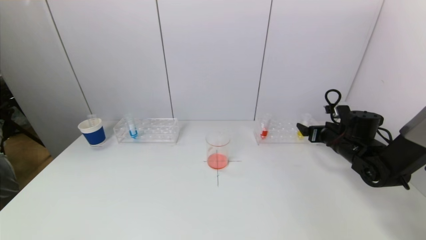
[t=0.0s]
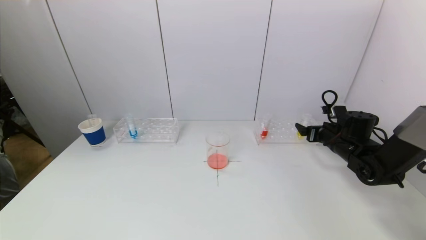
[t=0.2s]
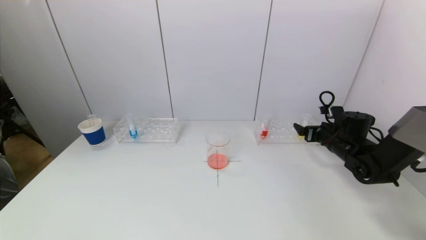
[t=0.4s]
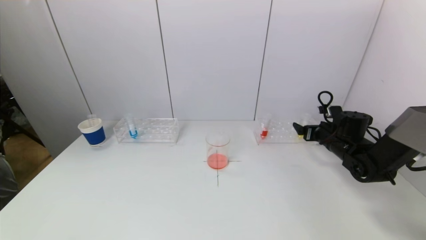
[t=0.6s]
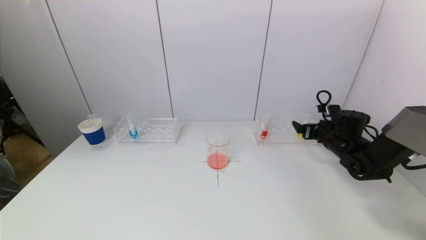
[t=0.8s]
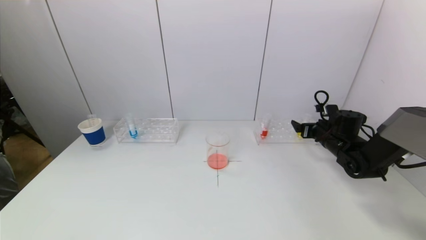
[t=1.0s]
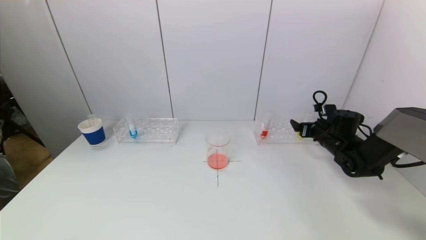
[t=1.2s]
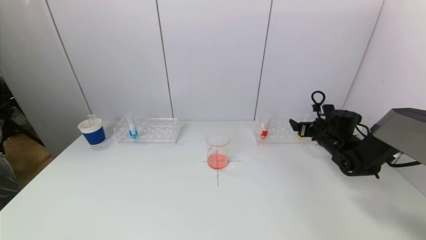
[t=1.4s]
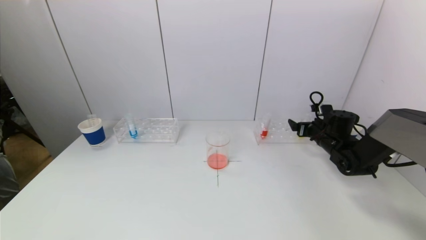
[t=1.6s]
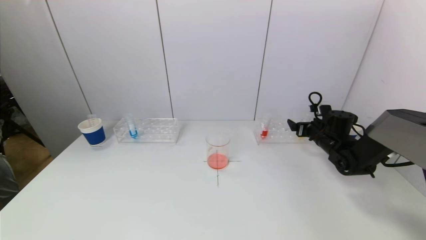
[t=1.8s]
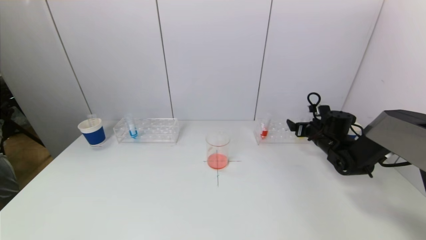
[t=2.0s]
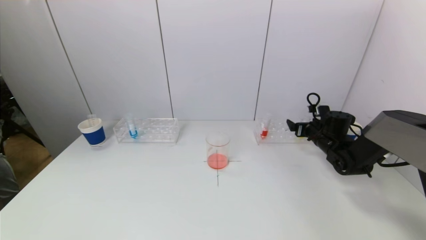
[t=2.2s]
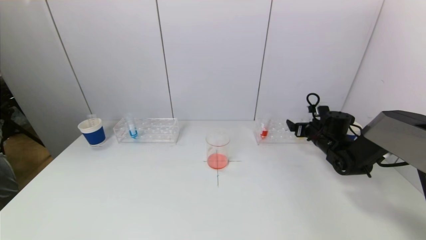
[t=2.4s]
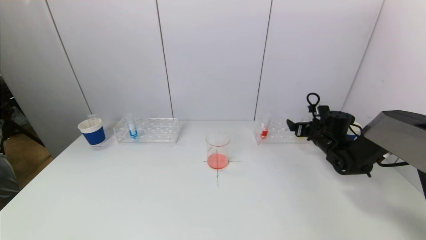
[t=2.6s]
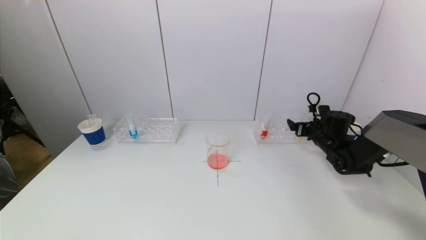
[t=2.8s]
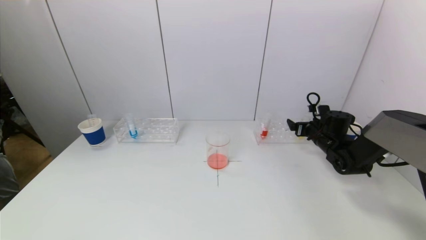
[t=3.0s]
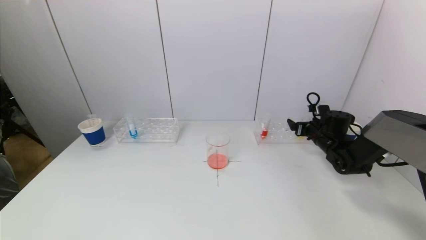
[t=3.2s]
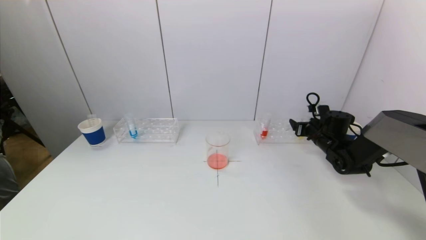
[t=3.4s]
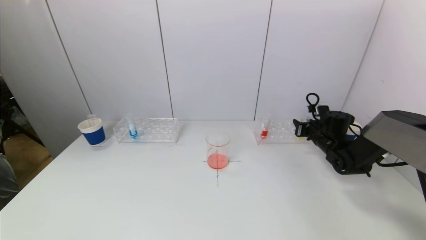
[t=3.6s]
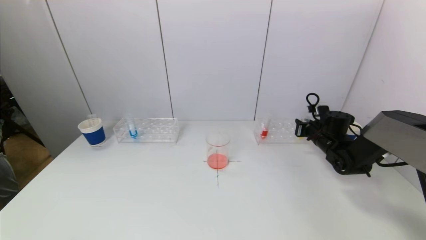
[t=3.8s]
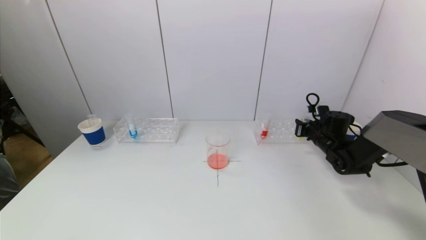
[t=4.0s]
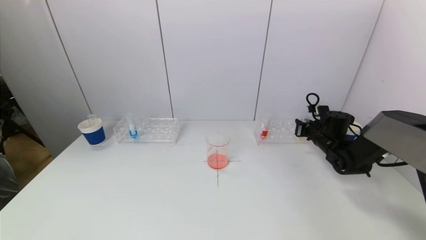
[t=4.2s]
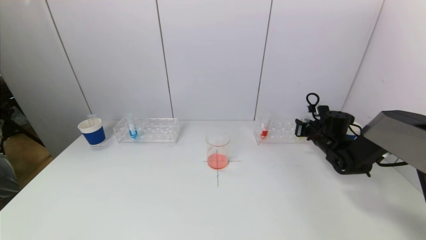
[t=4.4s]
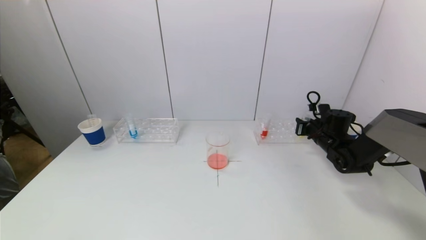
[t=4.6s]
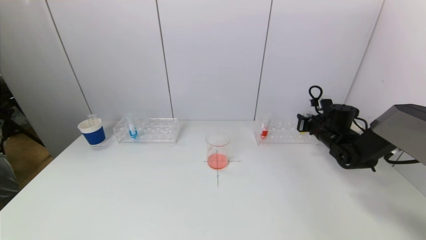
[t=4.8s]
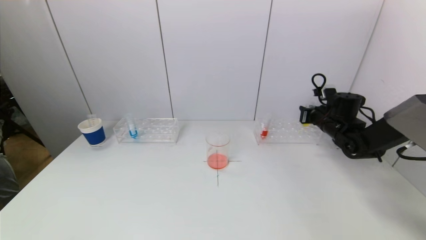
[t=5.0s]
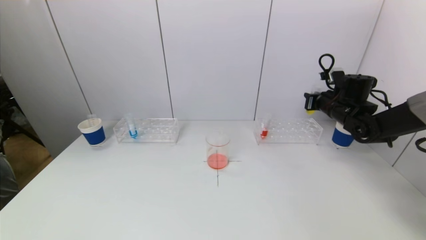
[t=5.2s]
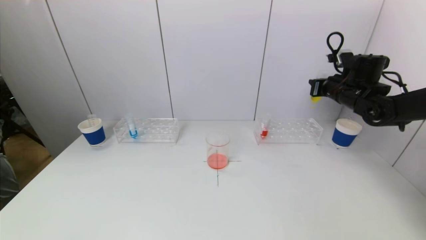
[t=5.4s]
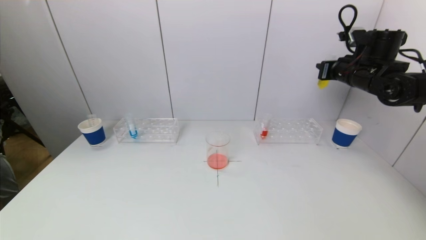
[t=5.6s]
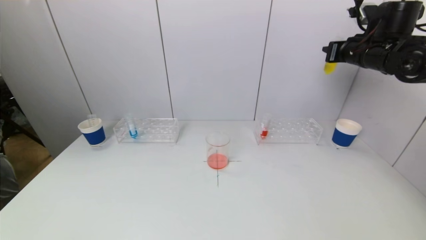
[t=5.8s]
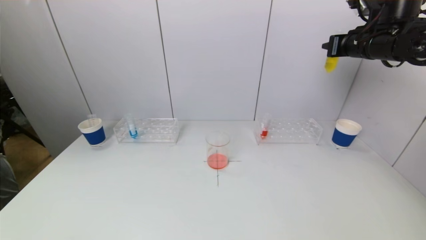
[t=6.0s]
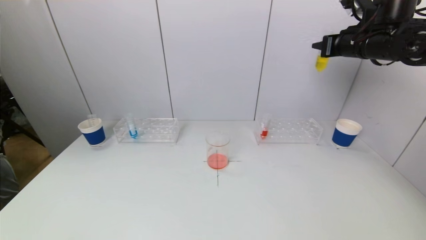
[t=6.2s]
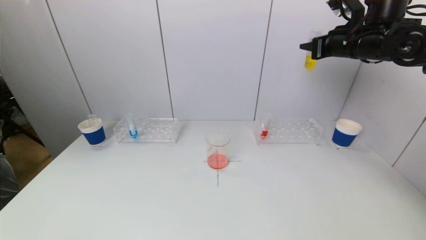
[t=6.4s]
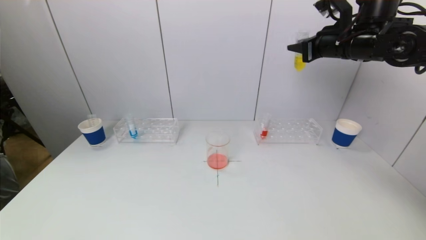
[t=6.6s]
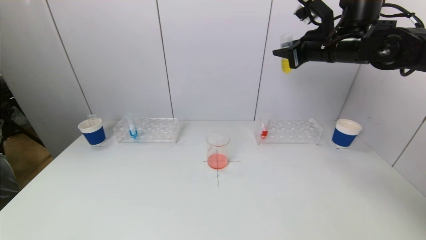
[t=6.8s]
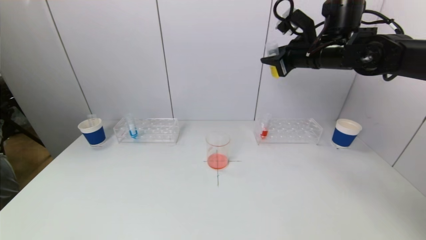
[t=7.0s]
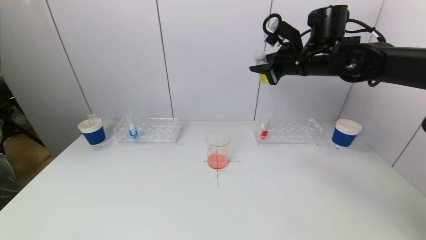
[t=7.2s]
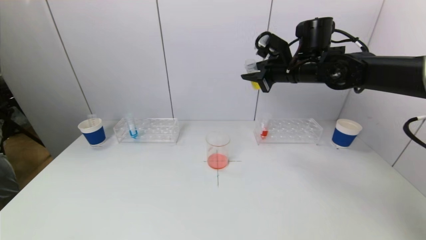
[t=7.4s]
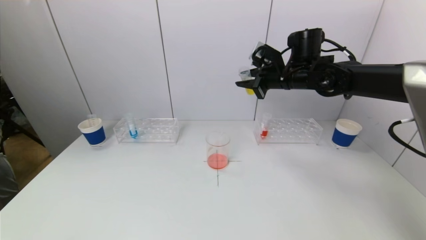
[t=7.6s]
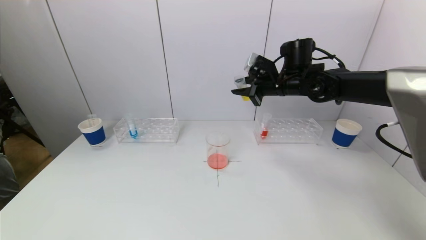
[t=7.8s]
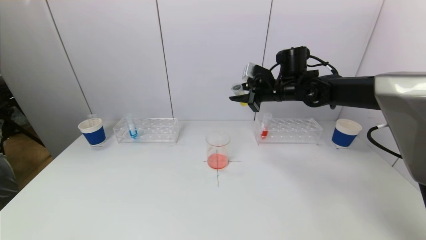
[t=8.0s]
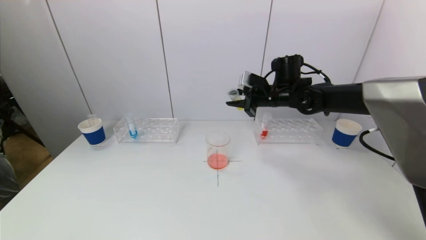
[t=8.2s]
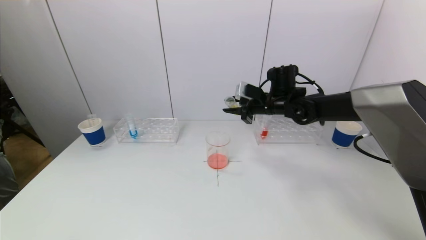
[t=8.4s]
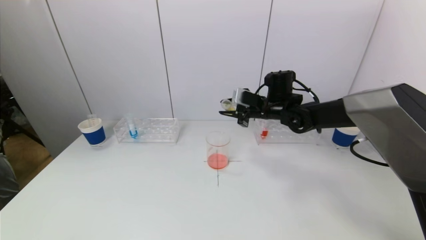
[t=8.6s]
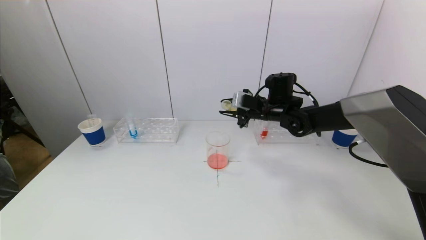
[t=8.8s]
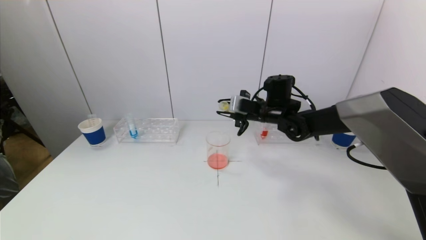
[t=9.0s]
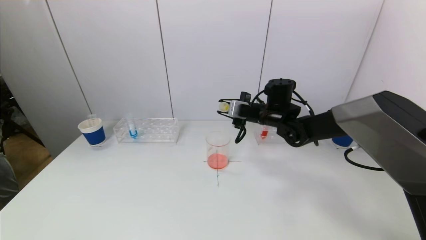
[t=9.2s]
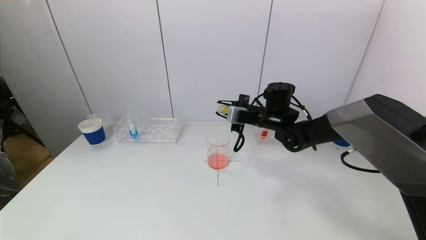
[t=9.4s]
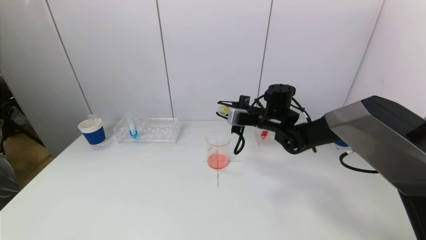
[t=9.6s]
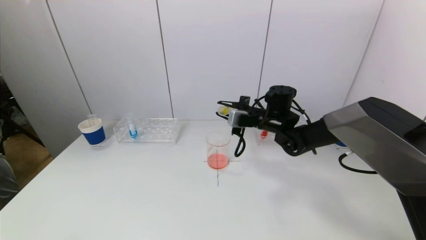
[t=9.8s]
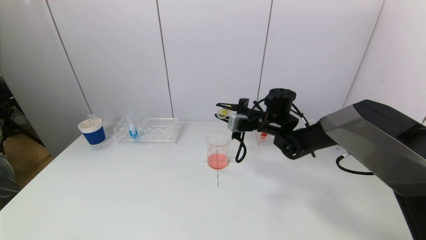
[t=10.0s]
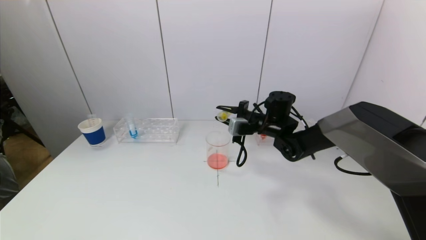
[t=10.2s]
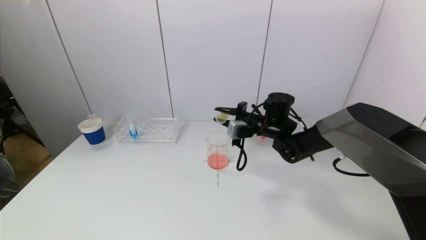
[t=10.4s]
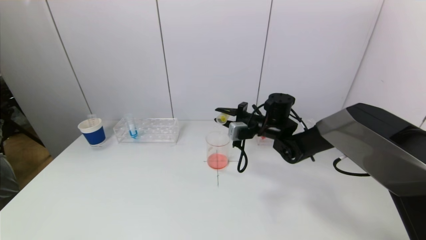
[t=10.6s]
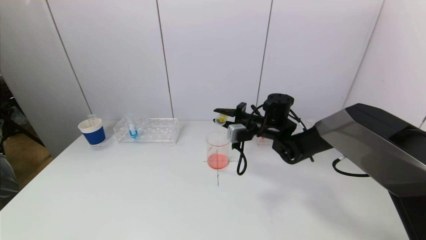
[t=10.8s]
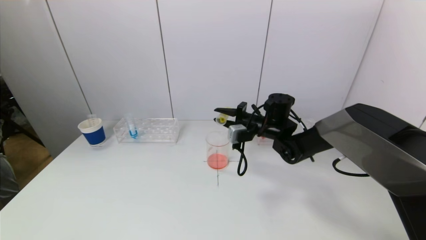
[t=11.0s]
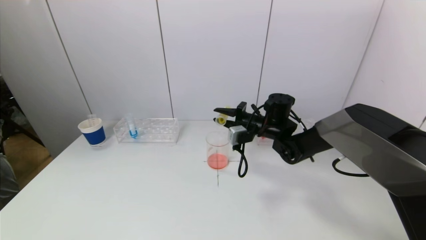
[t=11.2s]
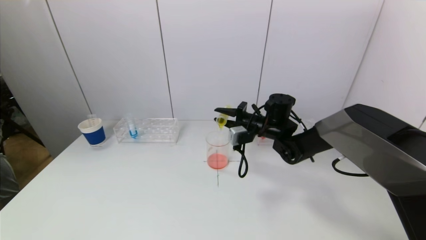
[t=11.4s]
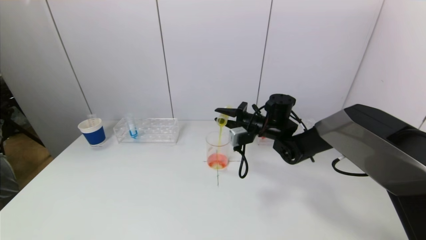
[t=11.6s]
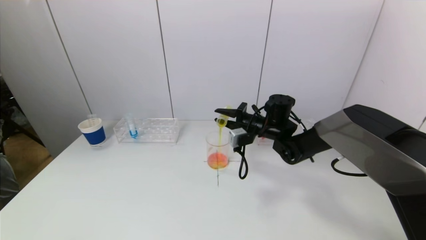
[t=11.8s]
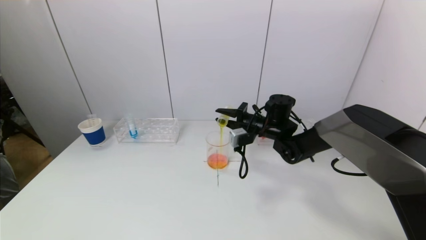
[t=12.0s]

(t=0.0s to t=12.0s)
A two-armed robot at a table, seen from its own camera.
Task of the whole recording: pick up a test tube with pigment on left test tube rack and a test tube with pigment on right test tube rack by grippers and pour them into the beaker.
Step, t=0.0s - t=4.0s: Grasp the yellow reagent with the right gripper.
t=0.0s - t=1.6s: The right gripper is displaced forward by approximately 5 cm.
t=1.6s - t=3.0s: Both grippers stay about where they are.
t=4.4s - t=6.0s: The right gripper is displaced upward by some 30 cm.
t=6.0s - t=7.6s: The right gripper is displaced to the left and downward by roughly 15 cm.
t=7.6s - t=9.0s: The right gripper moves downward, roughly 10 cm.
t=10.4s - t=12.0s: The grippers move only a little.

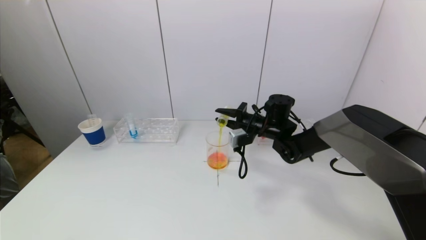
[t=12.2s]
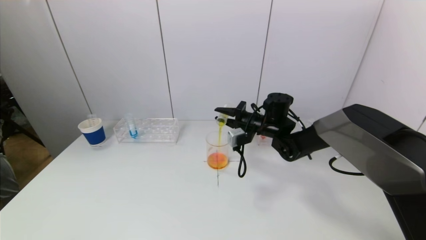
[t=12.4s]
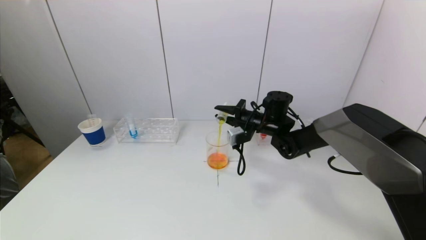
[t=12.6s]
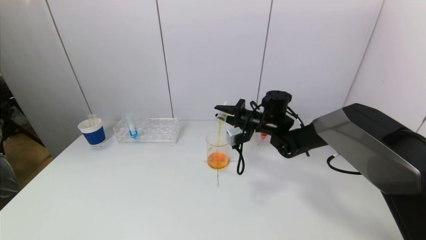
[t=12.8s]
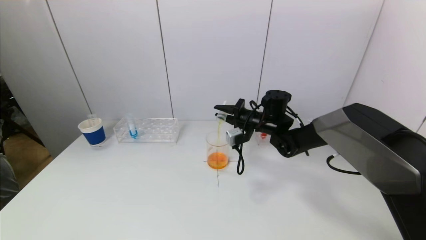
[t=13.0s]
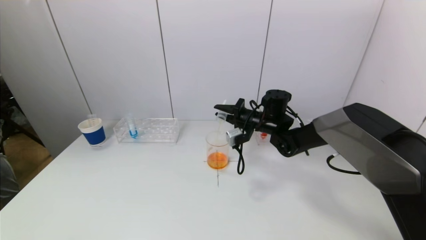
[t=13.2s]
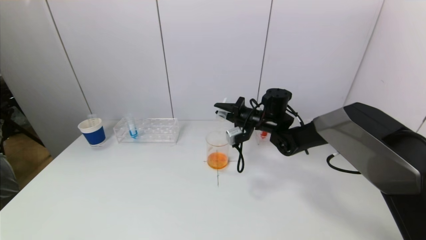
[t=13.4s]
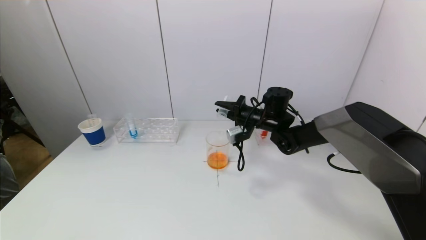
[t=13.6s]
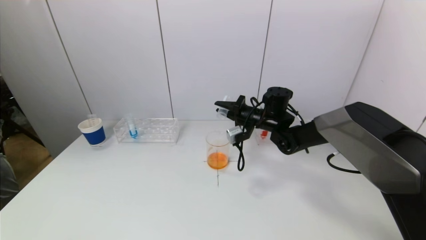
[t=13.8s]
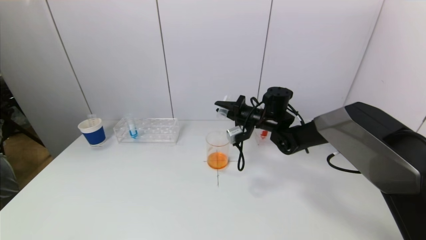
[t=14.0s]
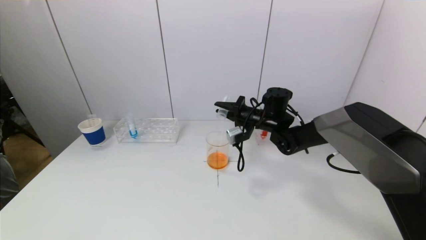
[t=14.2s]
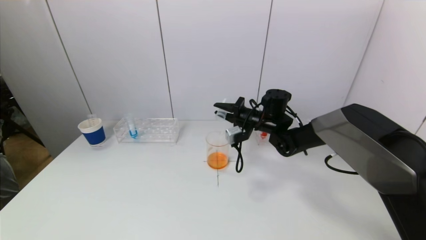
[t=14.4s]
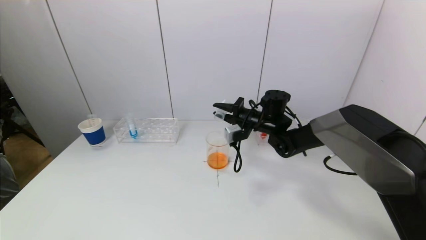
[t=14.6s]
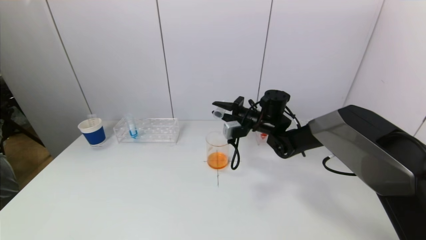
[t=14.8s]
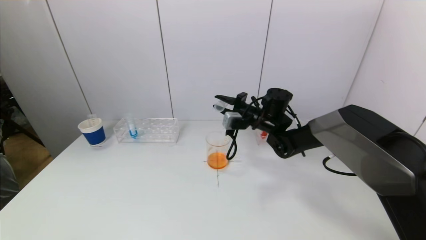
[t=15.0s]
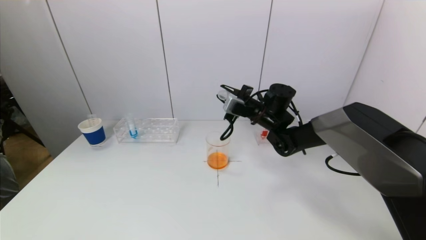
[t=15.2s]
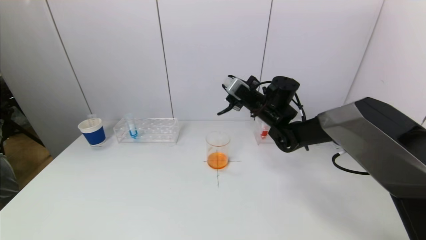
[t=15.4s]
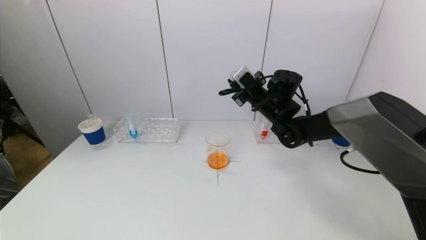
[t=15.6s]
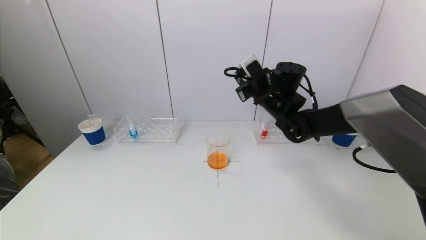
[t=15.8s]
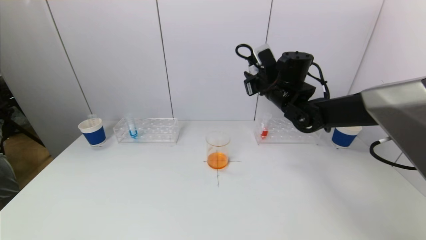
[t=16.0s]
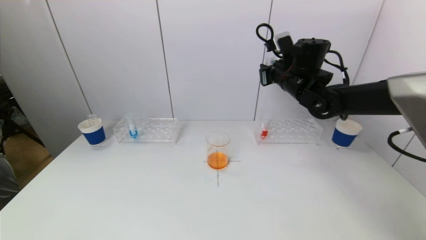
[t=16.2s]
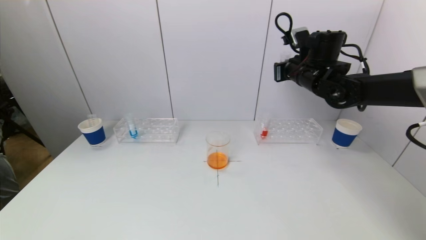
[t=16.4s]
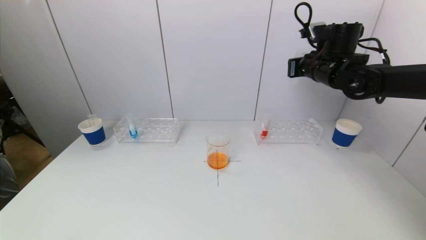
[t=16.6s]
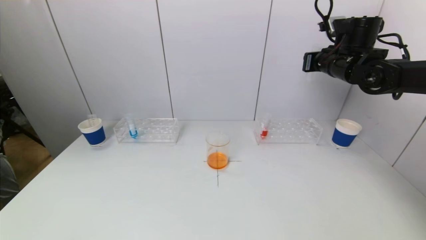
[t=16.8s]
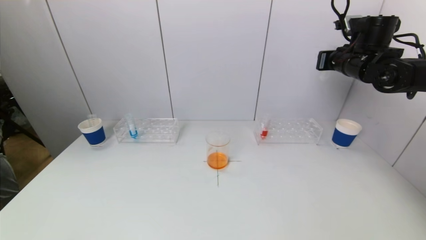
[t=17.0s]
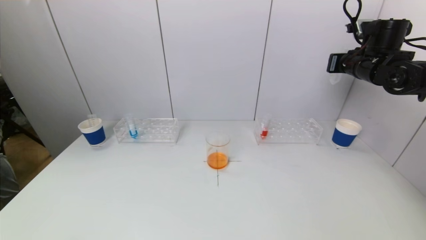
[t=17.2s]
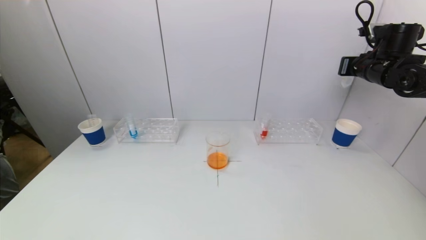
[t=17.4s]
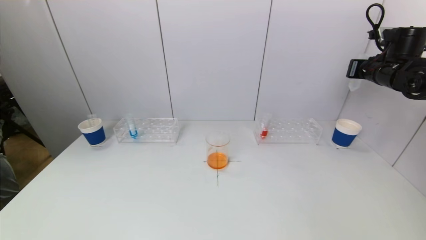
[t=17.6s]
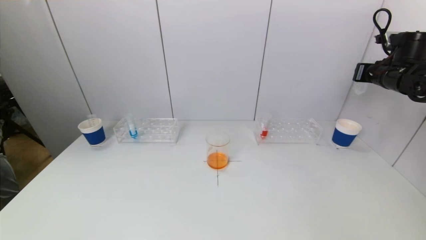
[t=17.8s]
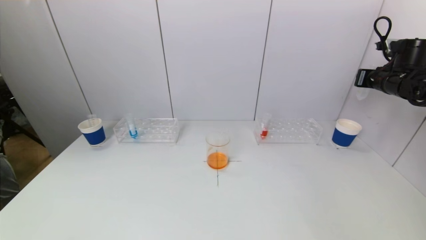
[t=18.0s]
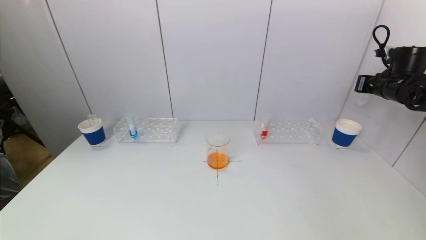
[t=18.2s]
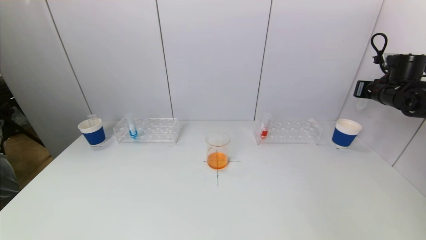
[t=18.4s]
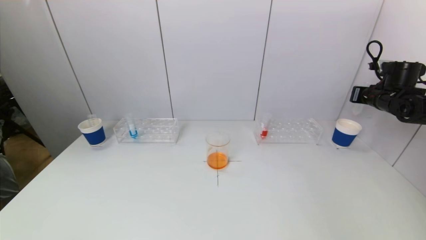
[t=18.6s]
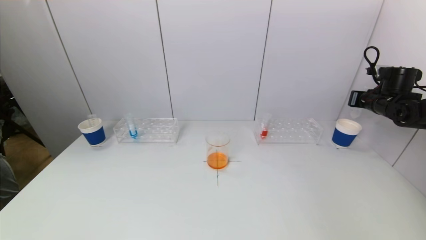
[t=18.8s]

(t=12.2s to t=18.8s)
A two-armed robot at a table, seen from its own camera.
Task of the whole recording: pick up a test tube with pigment on left test tube rack and a test tube with pigment on right test tube rack by grippers and pour them into the beaker.
t=12.2s - t=13.8s: The grippers stay close to where they were, moving slightly.
t=15.4s - t=17.2s: The right gripper goes roughly 25 cm to the right and upward.
t=17.2s - t=18.8s: The right gripper moves downward and to the right, about 15 cm.
